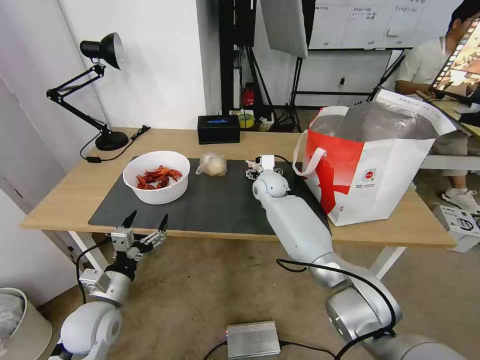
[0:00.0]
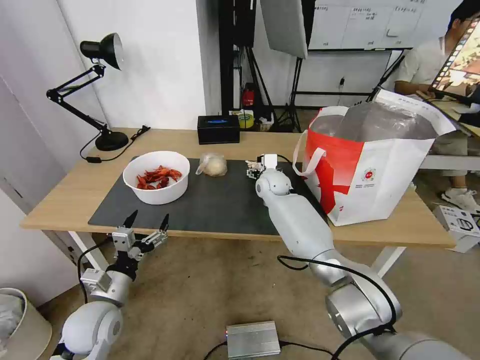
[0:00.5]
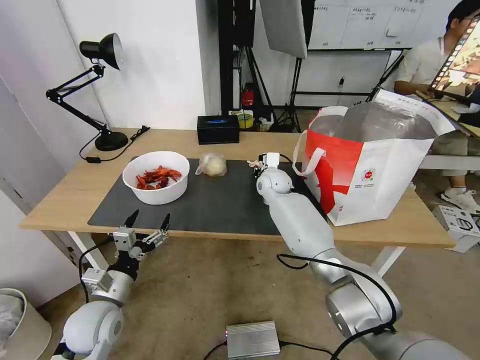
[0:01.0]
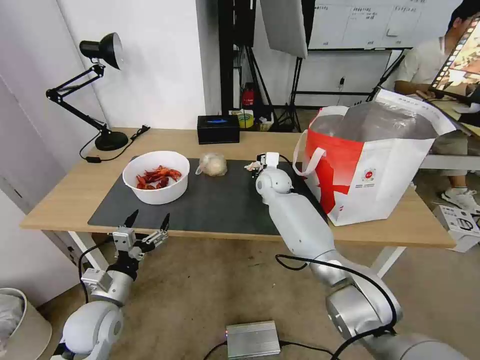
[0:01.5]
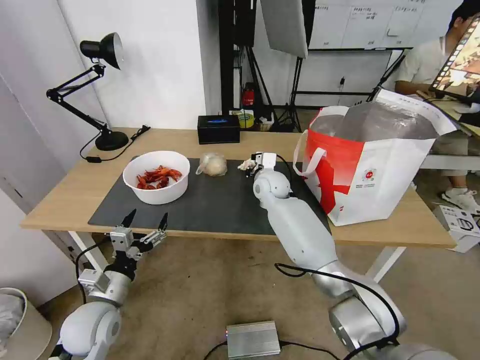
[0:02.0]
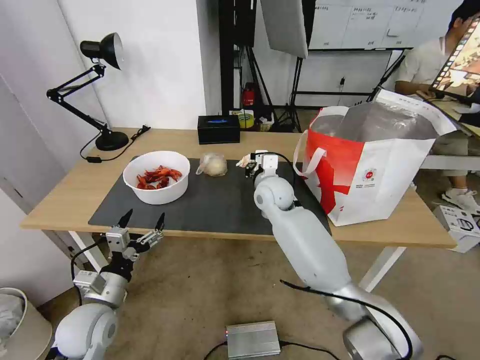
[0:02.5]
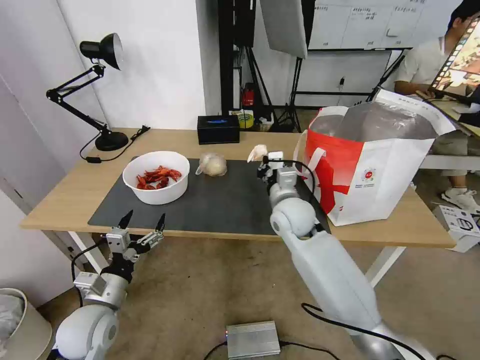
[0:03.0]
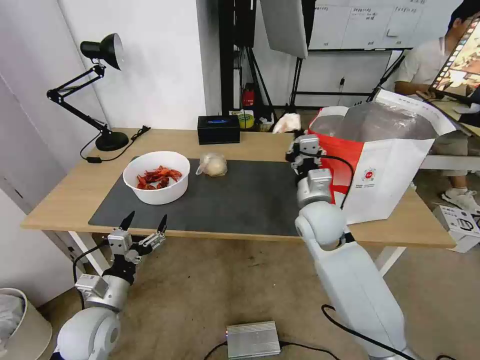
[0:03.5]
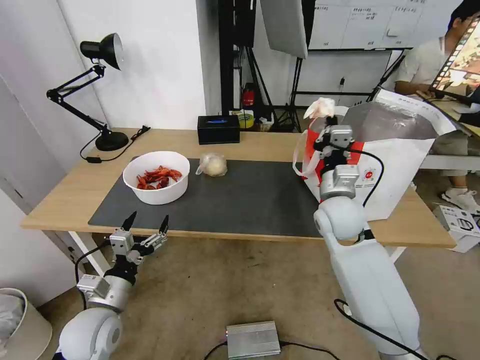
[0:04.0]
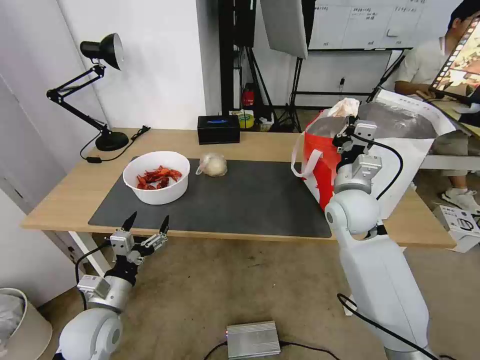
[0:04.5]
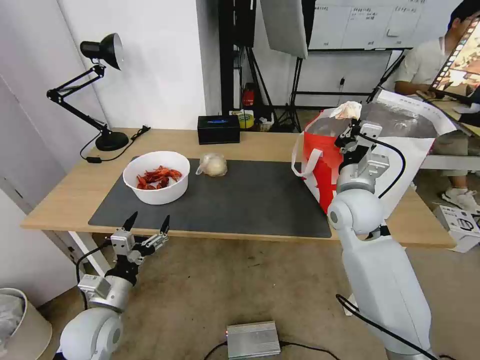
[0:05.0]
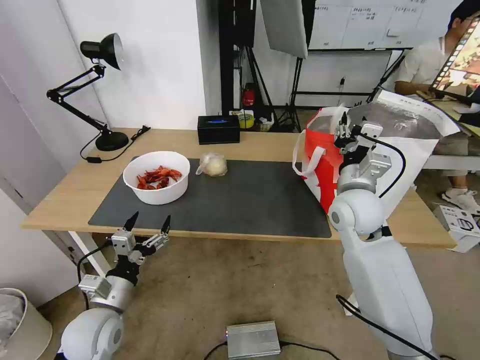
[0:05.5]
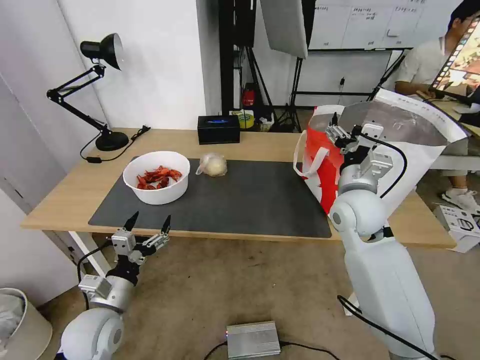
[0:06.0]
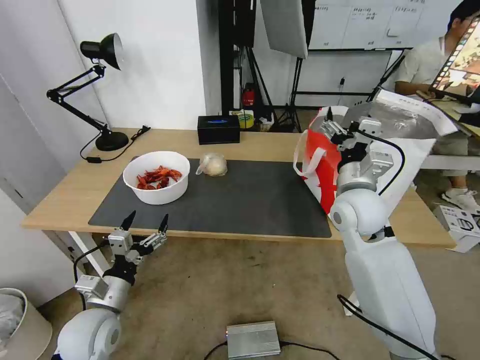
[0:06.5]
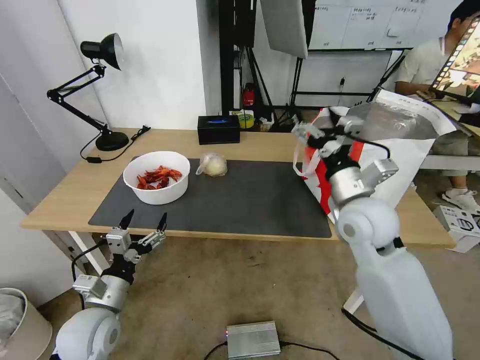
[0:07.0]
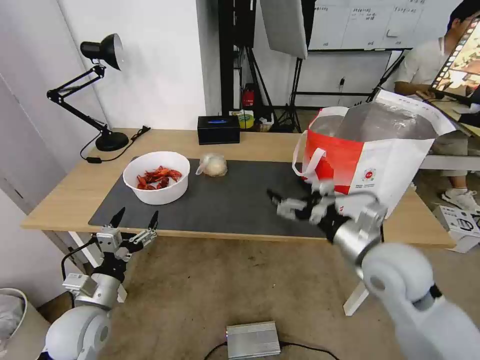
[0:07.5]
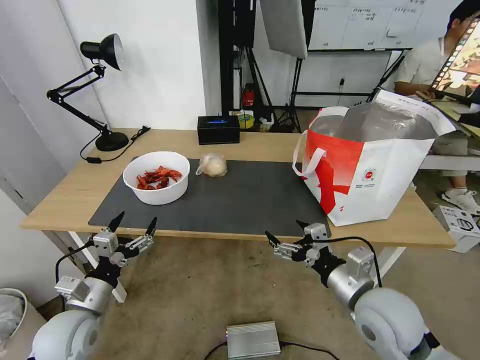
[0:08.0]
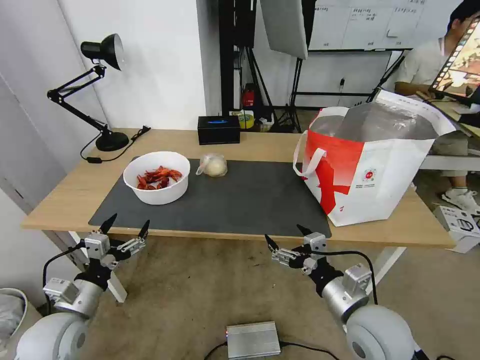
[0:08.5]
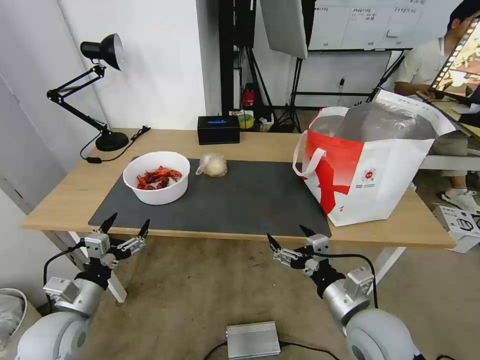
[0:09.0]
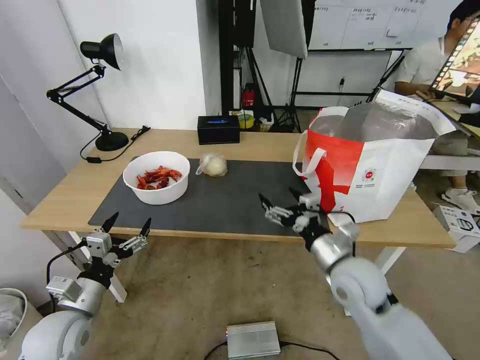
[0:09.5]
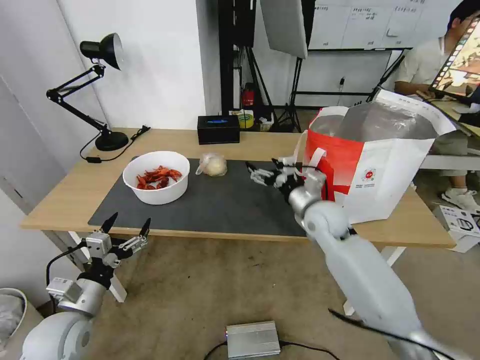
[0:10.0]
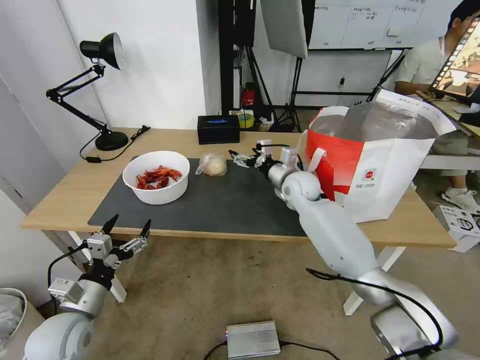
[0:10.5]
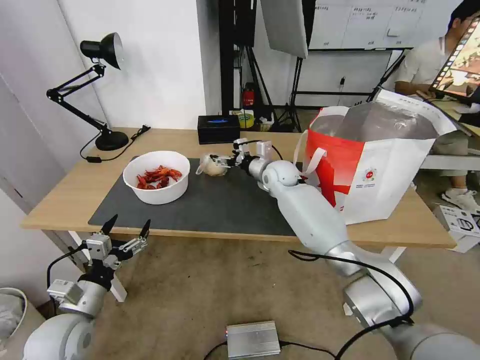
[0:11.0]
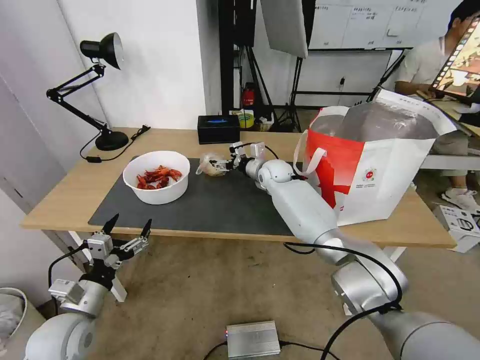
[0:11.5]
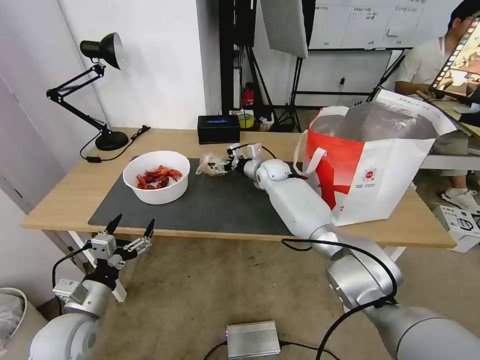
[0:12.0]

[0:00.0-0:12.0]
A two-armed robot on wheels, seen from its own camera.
Task of the whole recording: Pick up the trash from the table and place it into the takeout bag.
0.0 to 2.0 s: The right gripper closes.
2.0 to 4.0 s: The right gripper shifts some 20 cm backward and to the right.
4.0 to 6.0 s: The right gripper opens up.
6.0 to 8.0 s: The right gripper is displaced backward and downward by approximately 20 cm.
8.0 to 10.0 s: The right gripper travels forward by about 20 cm.
10.0 to 12.0 s: The right gripper heads forward and to the left, covering about 20 cm.

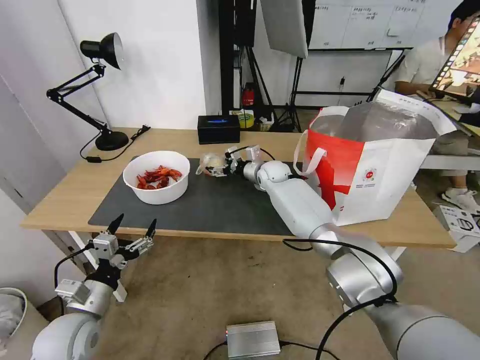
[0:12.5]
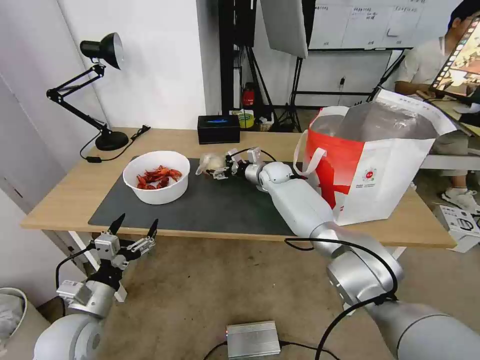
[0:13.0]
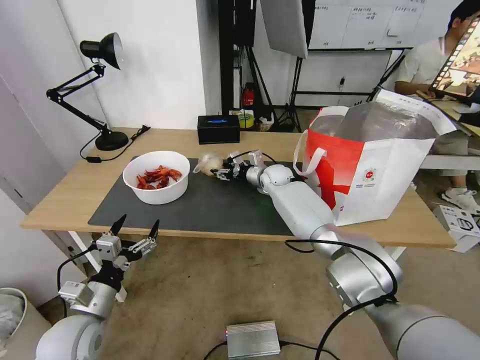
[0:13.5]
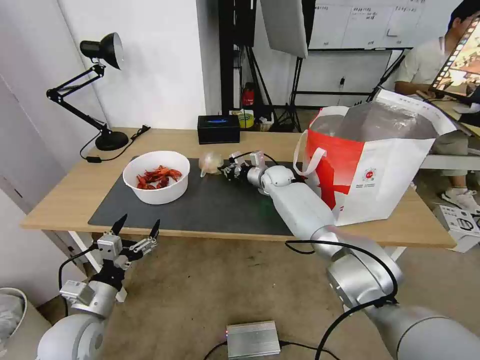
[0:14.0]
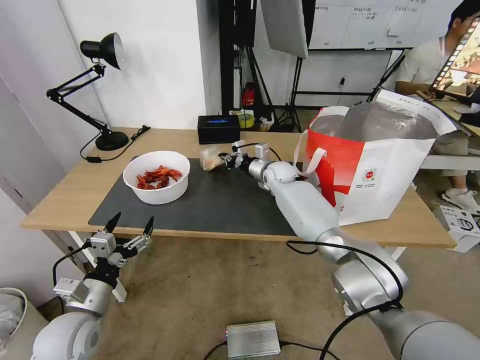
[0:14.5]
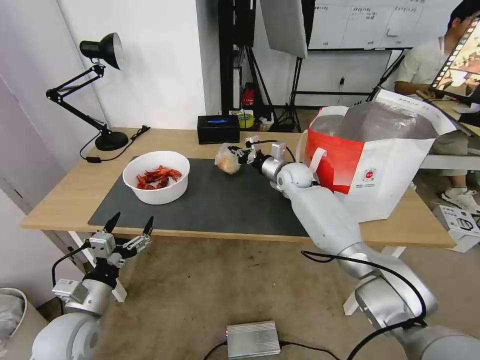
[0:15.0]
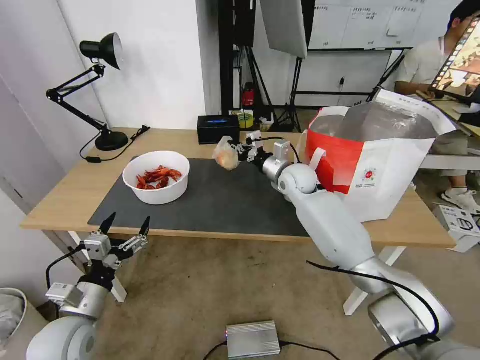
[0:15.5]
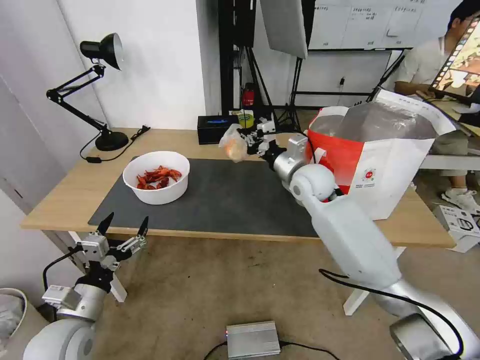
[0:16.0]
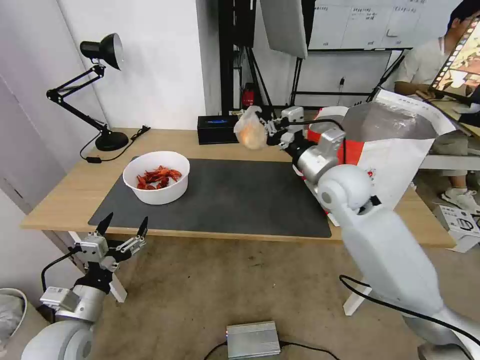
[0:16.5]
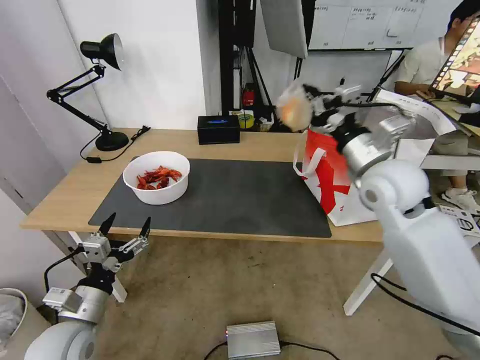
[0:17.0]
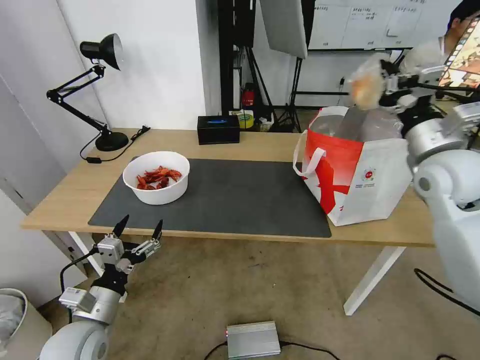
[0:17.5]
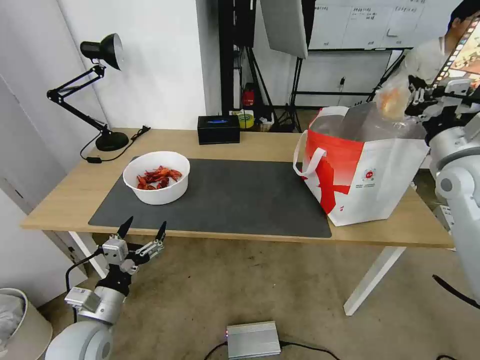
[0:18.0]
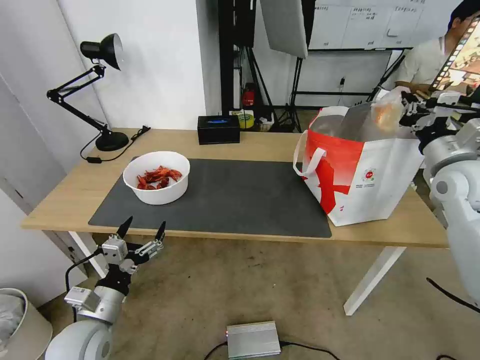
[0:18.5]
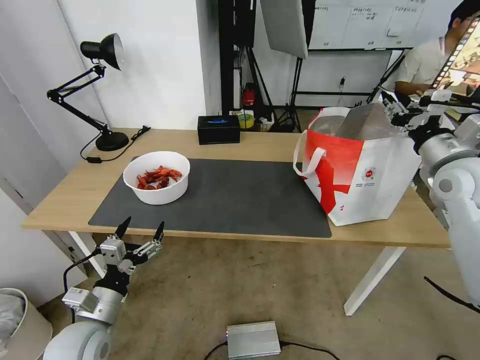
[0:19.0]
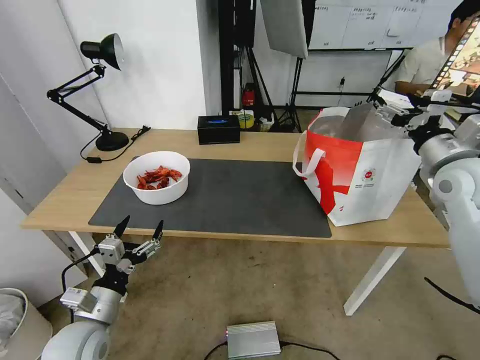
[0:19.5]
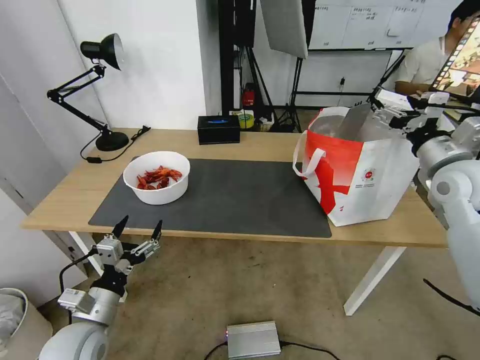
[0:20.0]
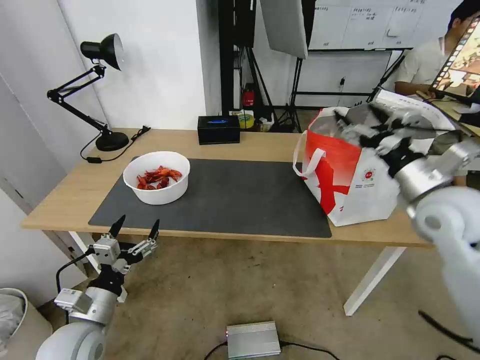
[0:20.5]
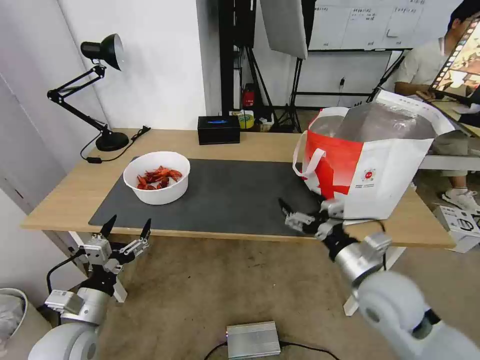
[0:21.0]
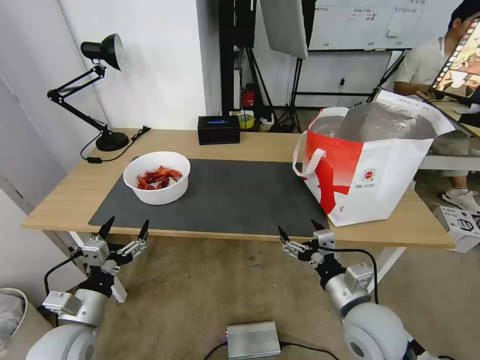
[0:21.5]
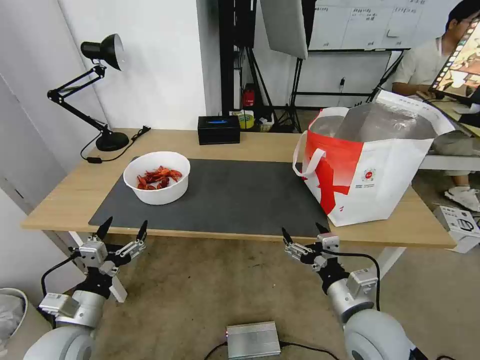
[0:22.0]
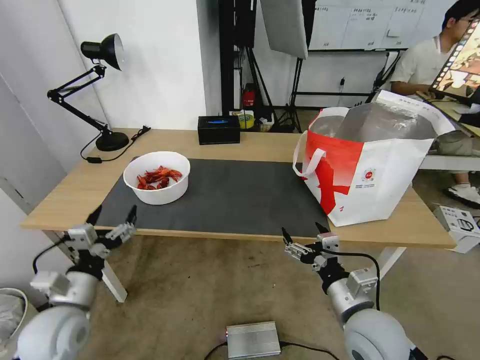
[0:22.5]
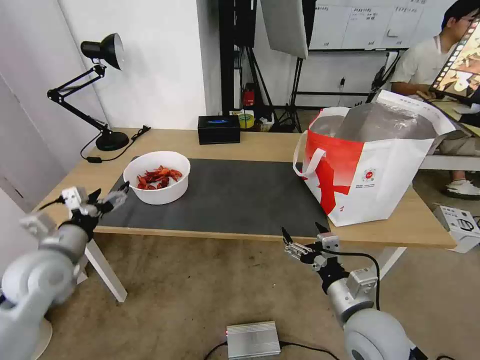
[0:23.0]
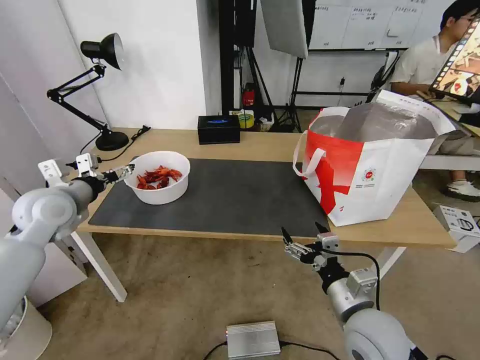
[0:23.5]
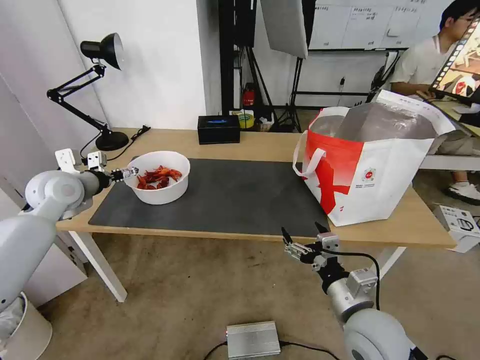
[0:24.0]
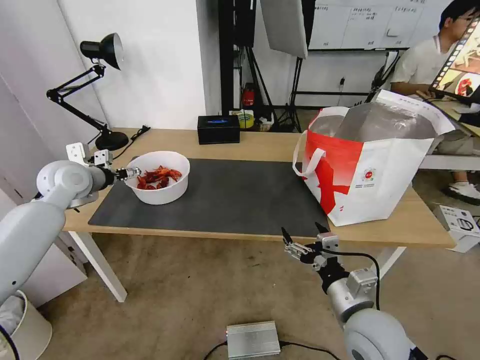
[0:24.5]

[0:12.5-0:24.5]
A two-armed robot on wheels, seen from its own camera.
Task of the whole recording: Pick up the trash from the table and place it into the takeout bag.
12.5 to 14.5 s: The right gripper closes its fingers.
14.5 to 16.5 s: The right gripper is displaced backward and upward by about 25 cm.
16.5 to 18.5 s: The right gripper goes about 20 cm to the right.
18.5 to 20.5 s: The right gripper travels to the left and backward by about 10 cm, and opens up.
20.5 to 22.5 s: The right gripper is displaced downward, backward and to the left by approximately 25 cm.
22.5 to 24.5 s: The left gripper shifts some 30 cm forward and upward.

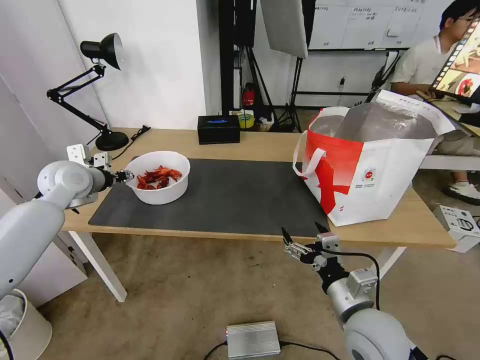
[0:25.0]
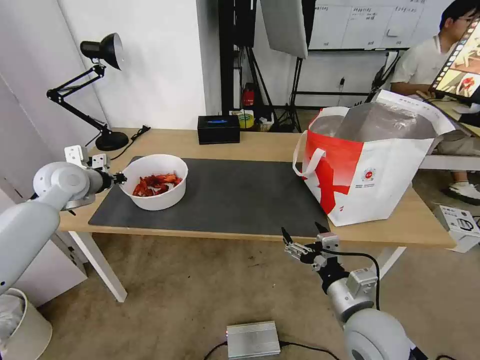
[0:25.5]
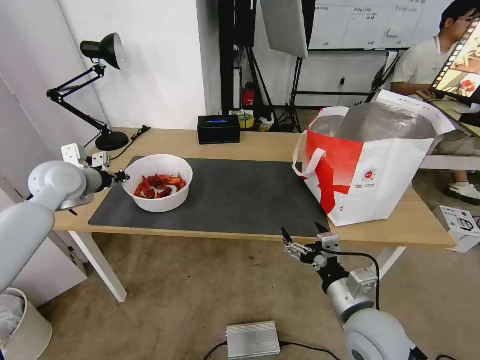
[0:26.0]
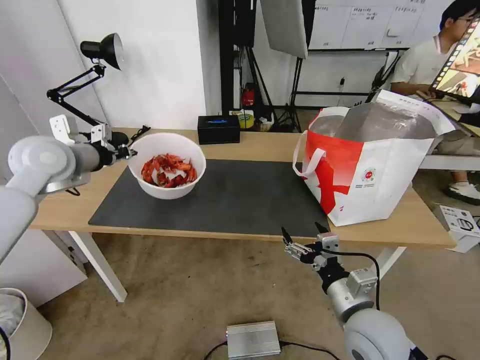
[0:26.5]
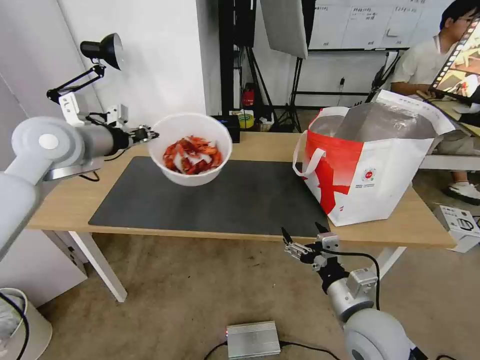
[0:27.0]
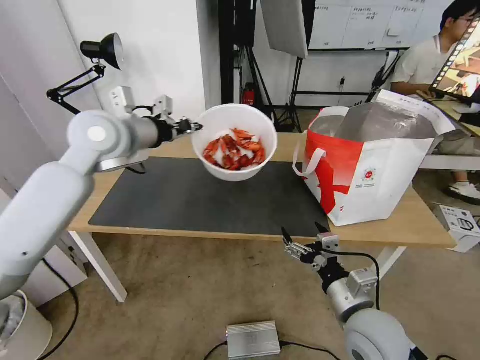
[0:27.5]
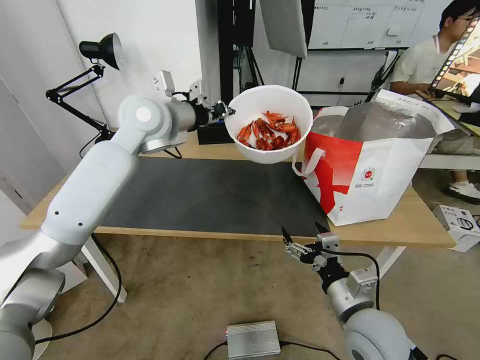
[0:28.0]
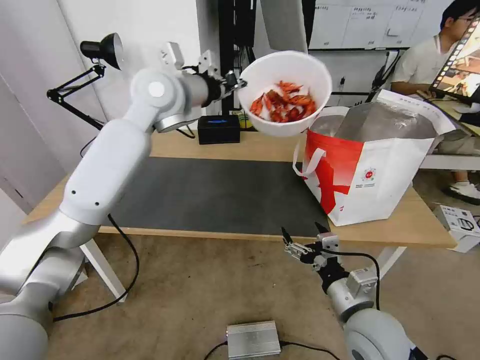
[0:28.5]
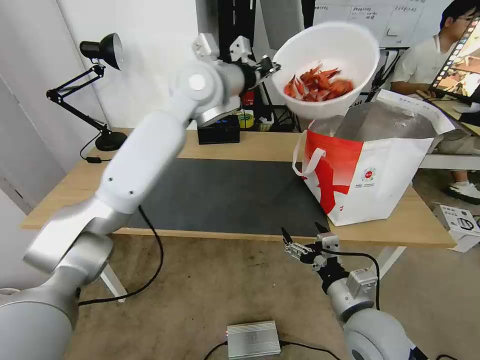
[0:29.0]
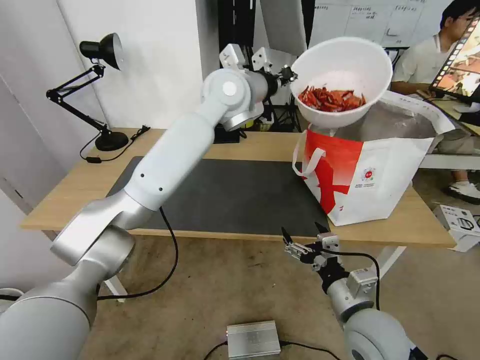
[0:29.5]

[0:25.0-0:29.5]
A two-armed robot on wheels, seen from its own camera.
Task of the whole recording: Pick up the trash from the table and place it into the takeout bag.
25.0 to 27.0 s: The left gripper is displaced upward and to the right by approximately 15 cm, and closes its fingers.
27.0 to 29.5 s: The left gripper goes some 30 cm to the right.
